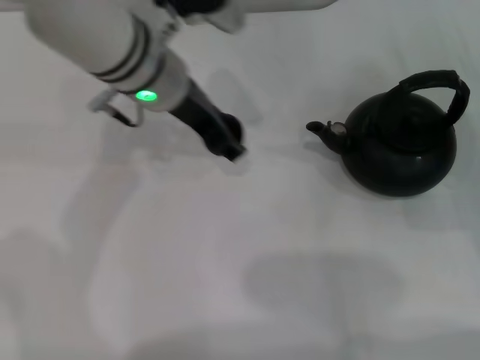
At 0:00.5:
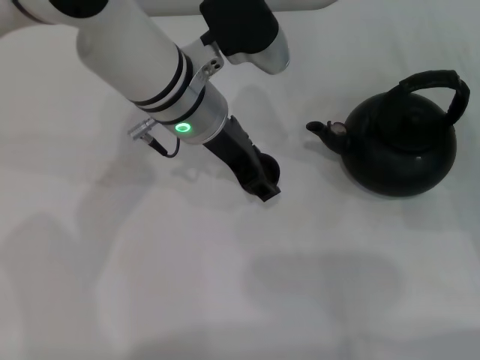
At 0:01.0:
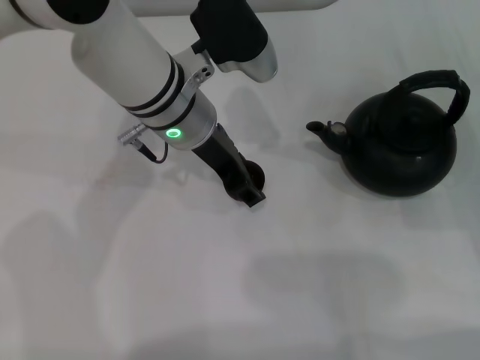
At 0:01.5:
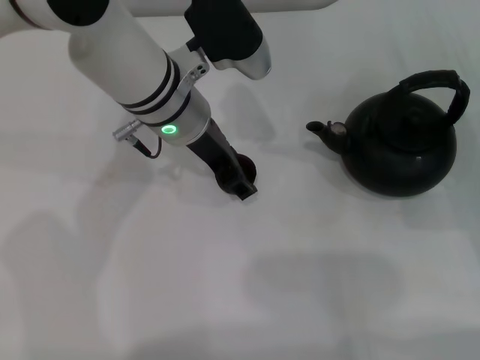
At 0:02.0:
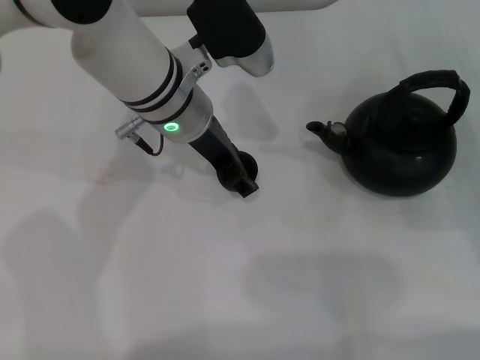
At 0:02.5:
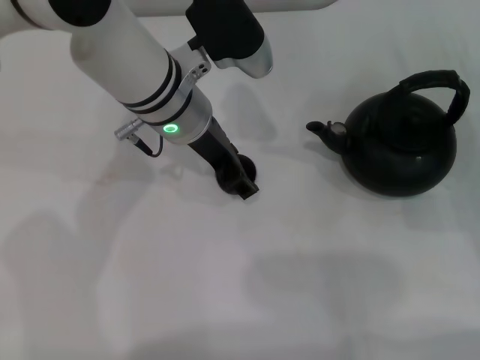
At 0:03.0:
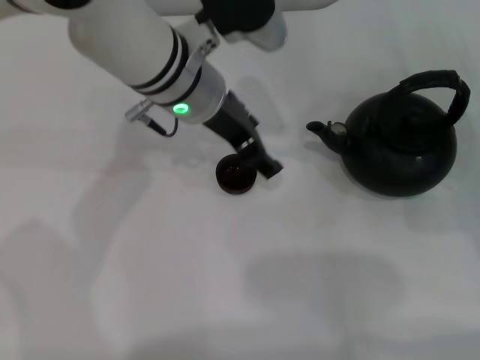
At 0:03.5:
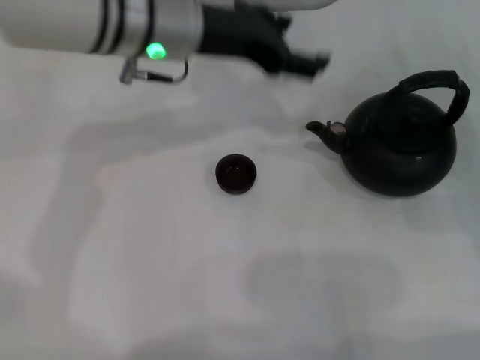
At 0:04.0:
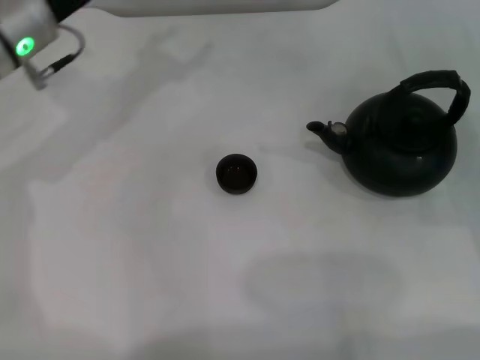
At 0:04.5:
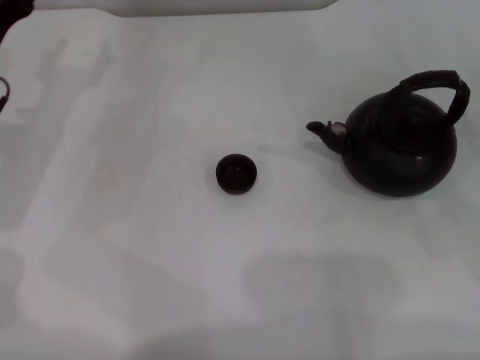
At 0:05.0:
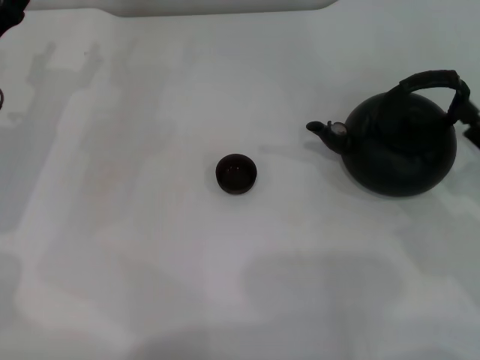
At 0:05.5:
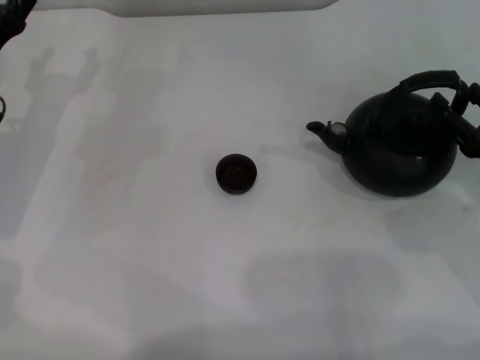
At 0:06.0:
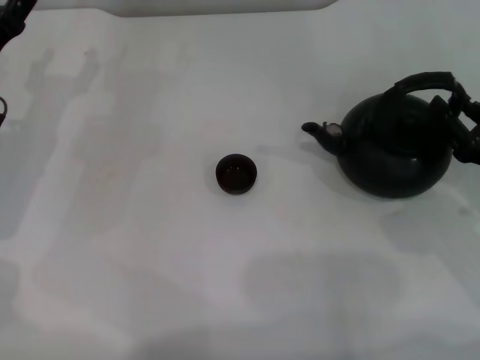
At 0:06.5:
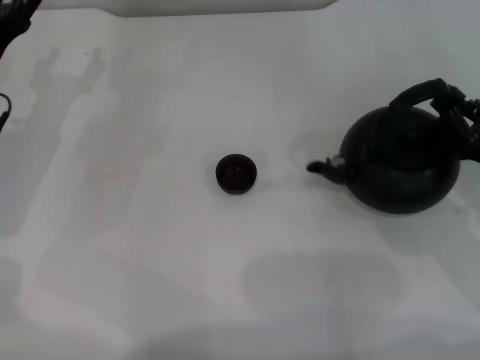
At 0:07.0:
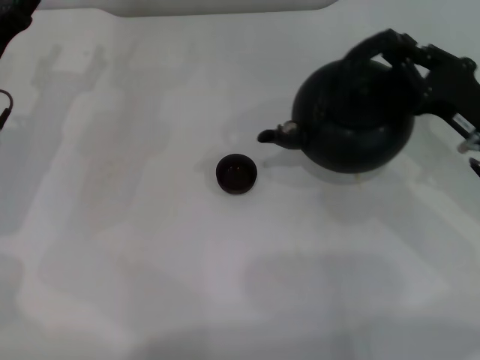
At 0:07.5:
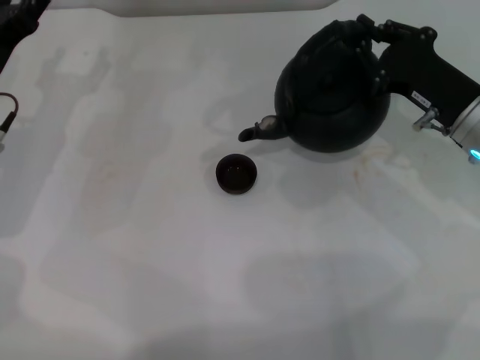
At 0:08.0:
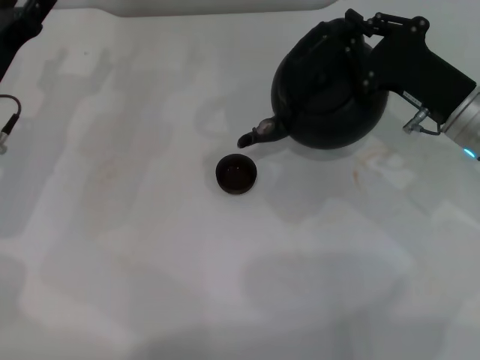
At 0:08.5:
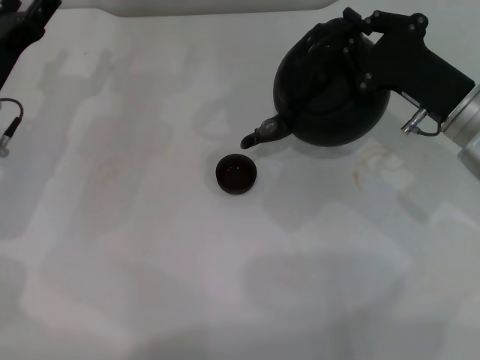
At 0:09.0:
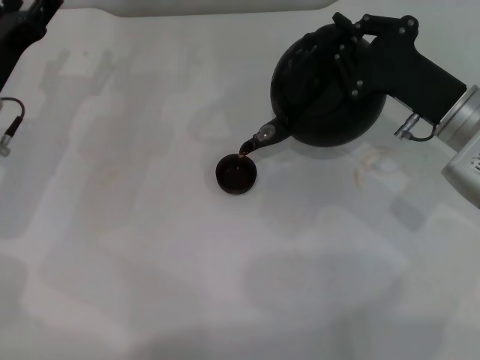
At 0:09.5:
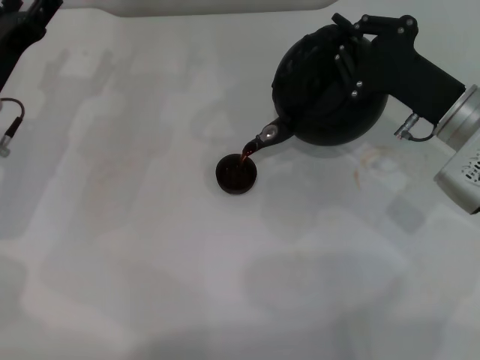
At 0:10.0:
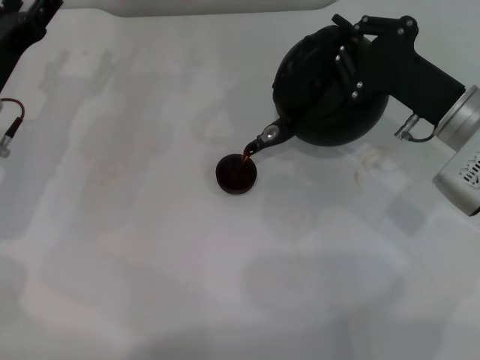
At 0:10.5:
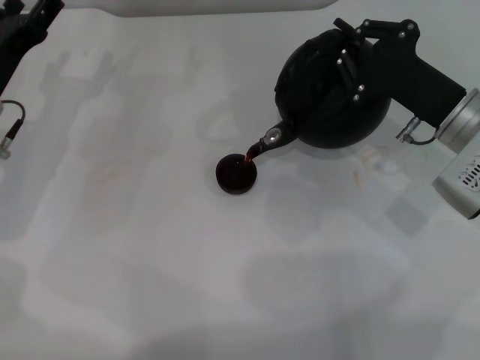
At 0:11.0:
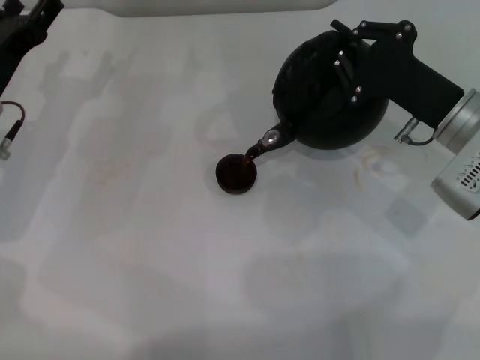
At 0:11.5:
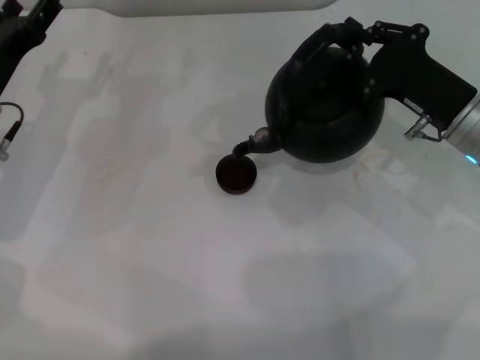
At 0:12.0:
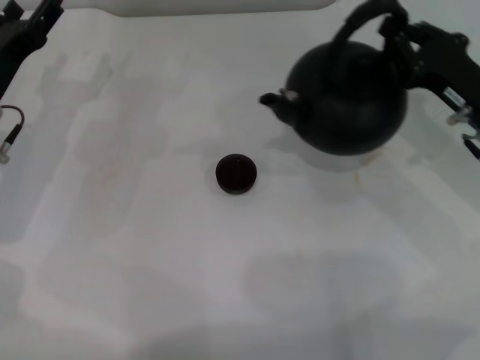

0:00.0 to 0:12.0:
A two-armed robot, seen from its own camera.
Task of the whole recording: Grasp the handle of the teapot with one hand and pour tea into the teacup.
Step, 0:00.0 to 0:03.0: Place the teacup in the center of view with the left gripper.
Step, 0:03.5 to 0:07.0: Pick up the teapot with the right gripper.
Step, 0:08.0 to 0:11.5: Pour tea into the teacup with the right gripper.
0:00.0 to 0:02.0: The grippers move only a little.
0:02.0 to 0:04.0: The left gripper shifts roughly 15 cm to the left, and opens up.
0:04.0 to 0:06.0: The right gripper ends up roughly 5 cm from where it was. The left gripper heads downward and to the left, covering approximately 10 cm.
0:06.0 to 0:08.0: The right gripper moves forward and to the left, about 10 cm, and closes.

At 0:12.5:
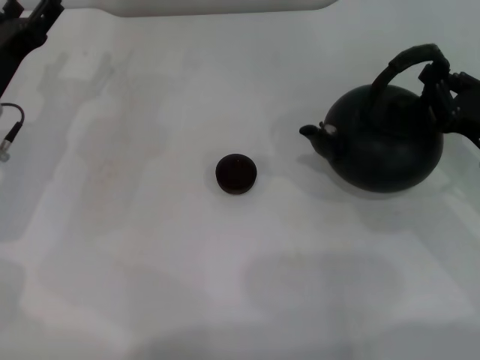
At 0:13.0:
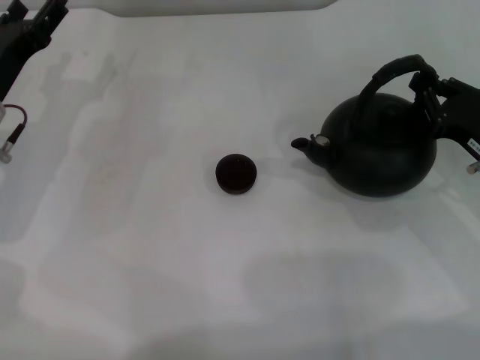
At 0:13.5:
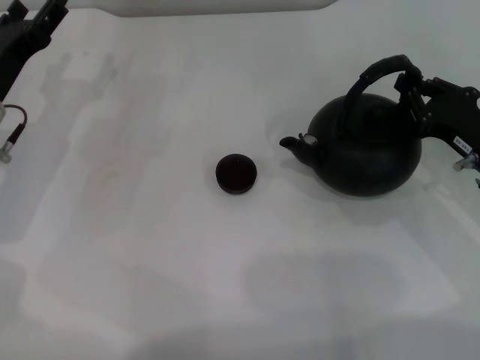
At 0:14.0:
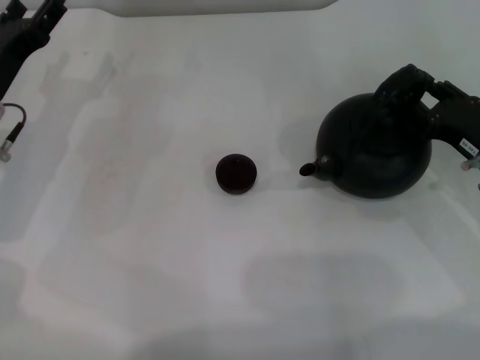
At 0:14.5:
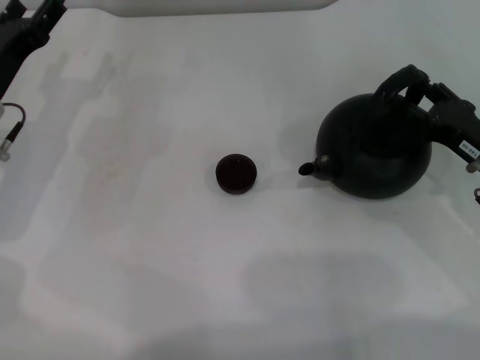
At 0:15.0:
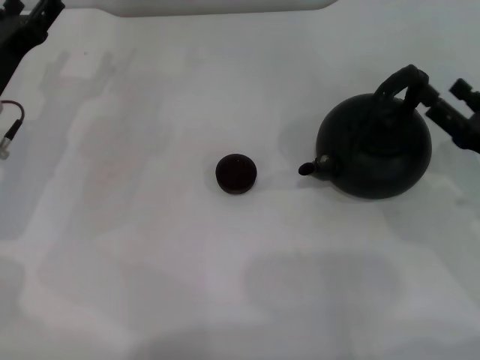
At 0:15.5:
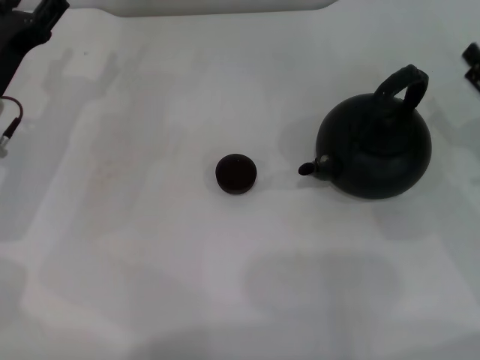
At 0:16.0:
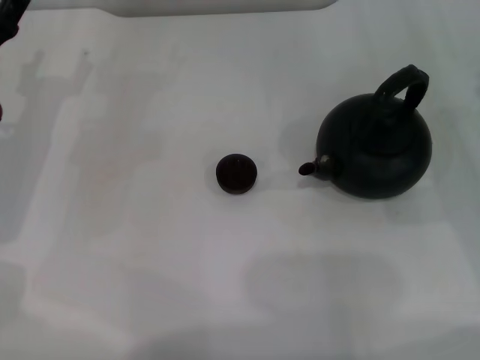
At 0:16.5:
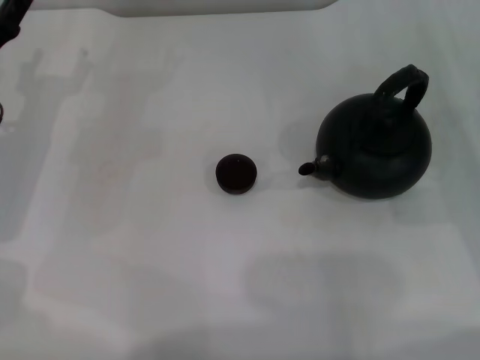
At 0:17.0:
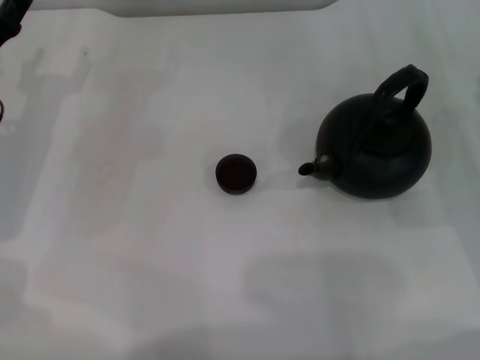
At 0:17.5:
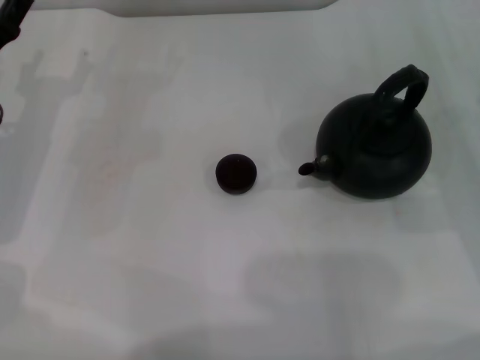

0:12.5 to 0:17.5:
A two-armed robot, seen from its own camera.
Task of the whole recording: Grasp the handle of the teapot with one hand and pour tea into the teacup.
Step, 0:12.5 to 0:14.5: Put down the teapot with the right gripper.
0:12.5 to 0:15.0: The right gripper opens up.

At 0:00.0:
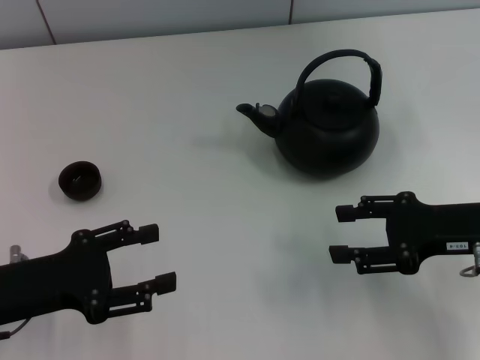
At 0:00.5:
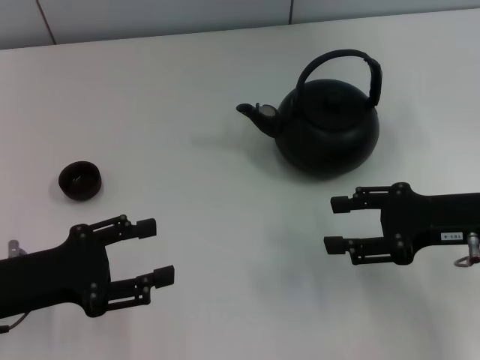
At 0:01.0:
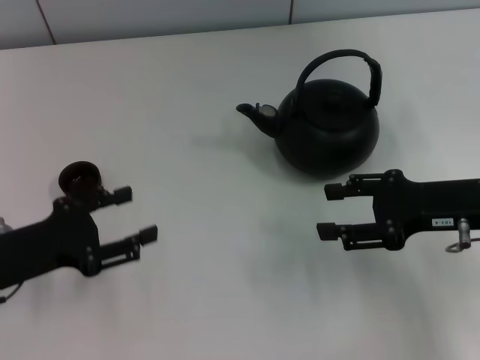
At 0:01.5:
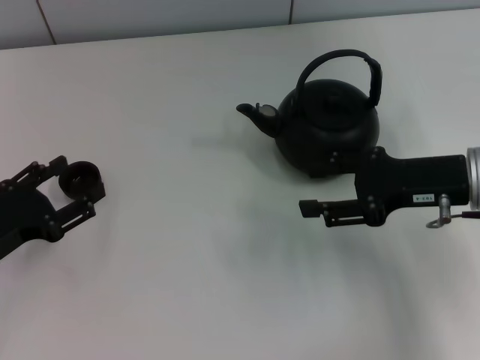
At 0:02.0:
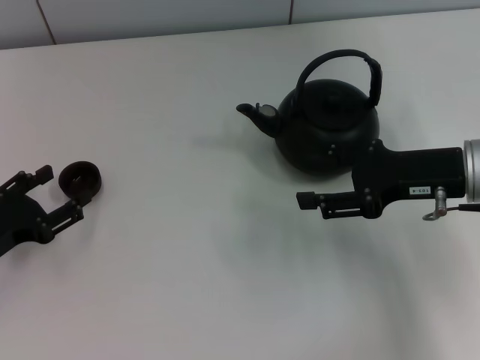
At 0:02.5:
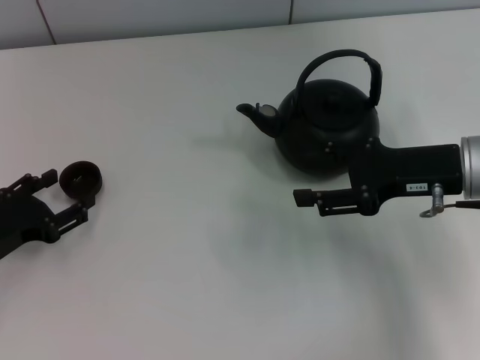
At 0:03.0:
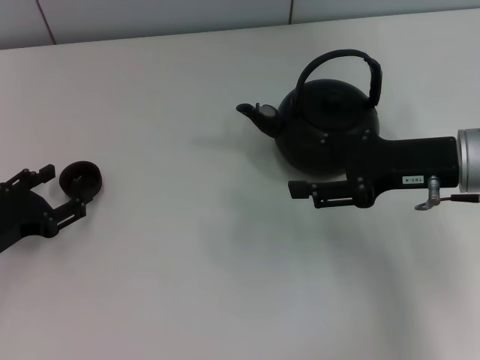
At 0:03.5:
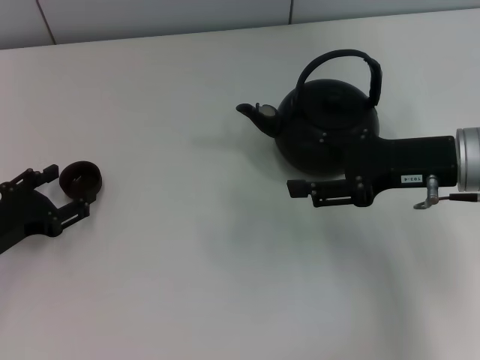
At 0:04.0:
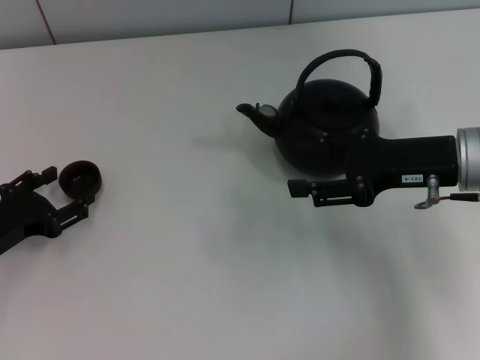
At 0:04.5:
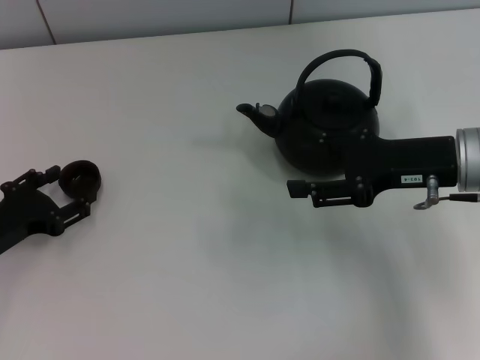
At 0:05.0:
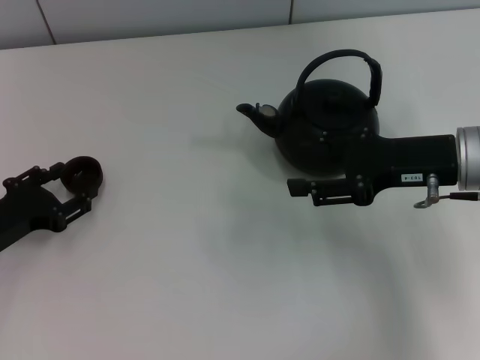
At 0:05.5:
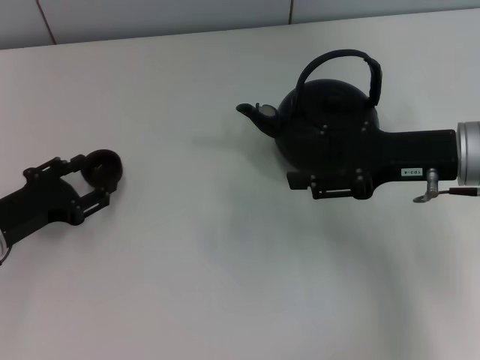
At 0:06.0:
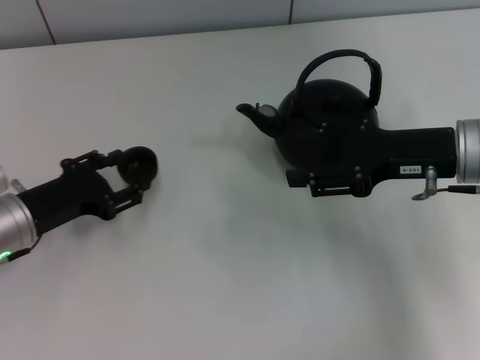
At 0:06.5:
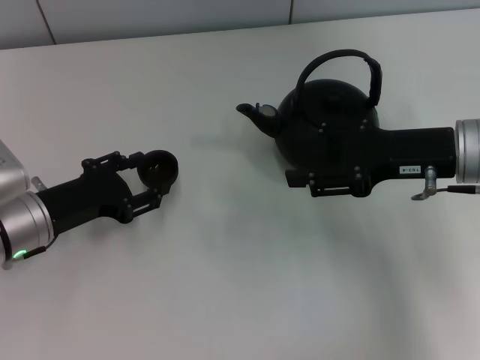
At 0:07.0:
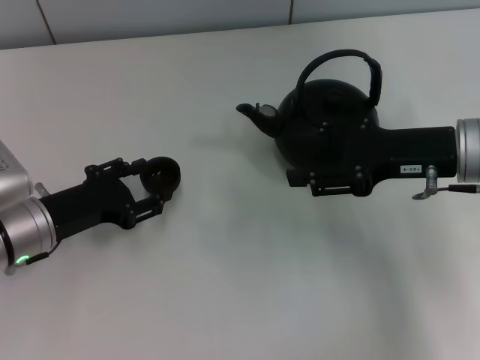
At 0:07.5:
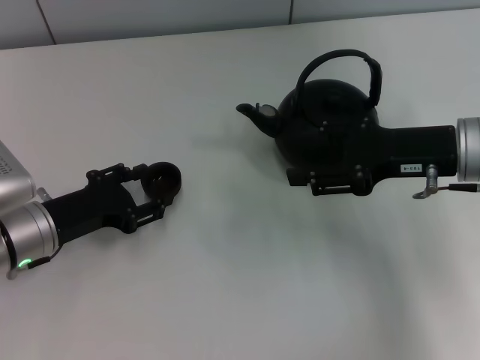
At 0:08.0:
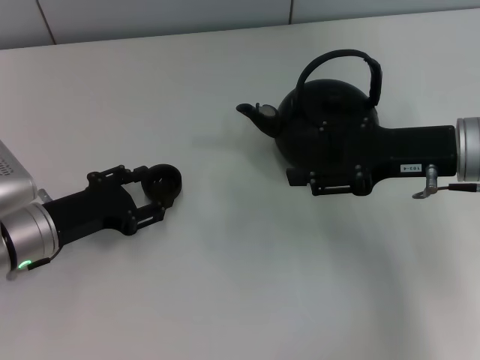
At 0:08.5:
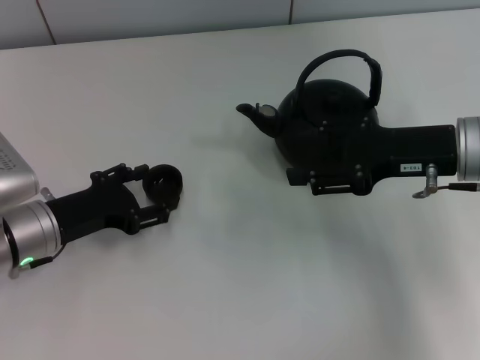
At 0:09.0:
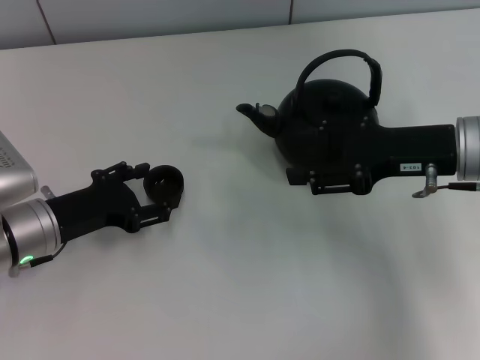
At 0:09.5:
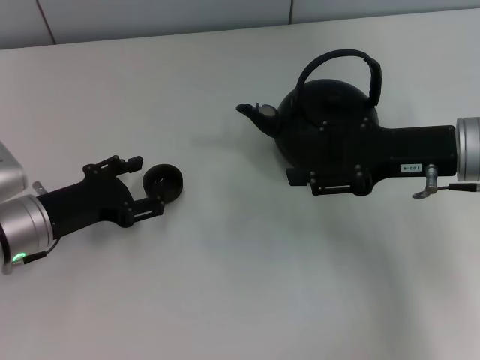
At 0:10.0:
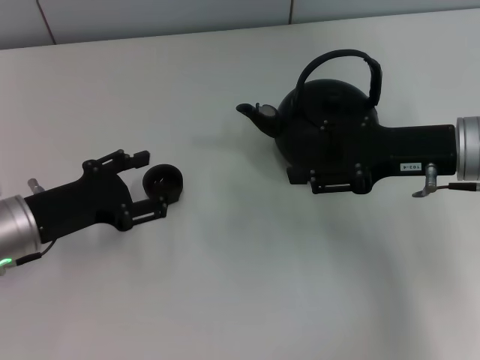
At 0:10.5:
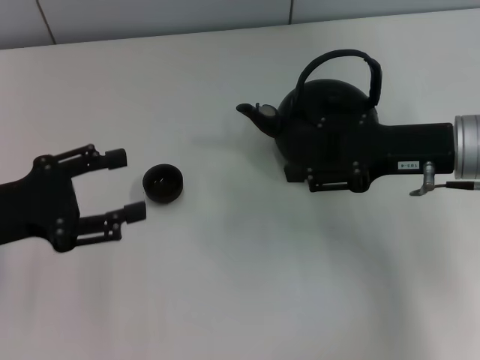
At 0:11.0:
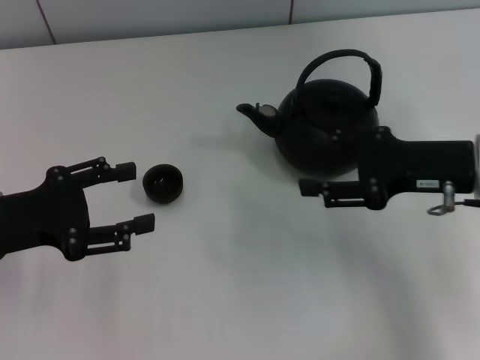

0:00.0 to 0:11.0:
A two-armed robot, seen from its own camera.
Task of the whole recording: Grasp the handle of the teapot with one hand and pour tea into the teacup.
Step, 0:00.0 to 0:05.5: Pick up the teacup with the left gripper.
Step, 0:06.0 to 0:10.0: Place the teacup in the center of view with the left gripper.
0:00.0 to 0:02.0: The left gripper moves about 5 cm. The right gripper moves about 5 cm.
0:02.0 to 0:03.5: There are only small adjustments of the grippers.
0:03.5 to 0:05.5: The left gripper closes up.
0:05.5 to 0:07.5: The left gripper opens up.
0:07.5 to 0:09.0: The left gripper opens its fingers.
0:09.0 to 0:11.0: The left gripper shifts about 5 cm upward.
